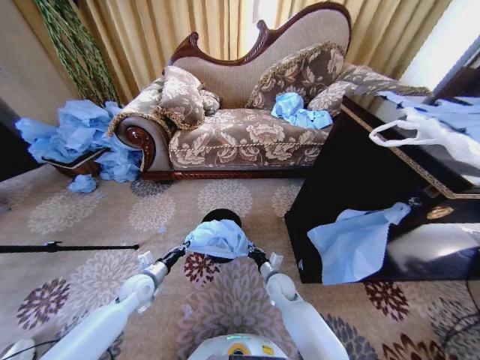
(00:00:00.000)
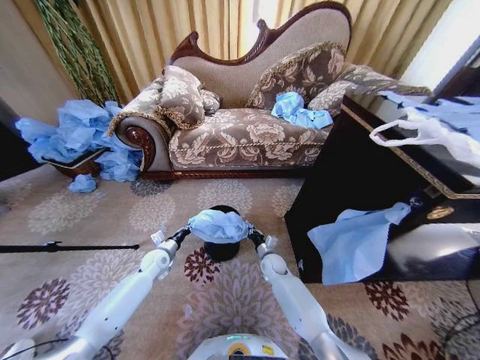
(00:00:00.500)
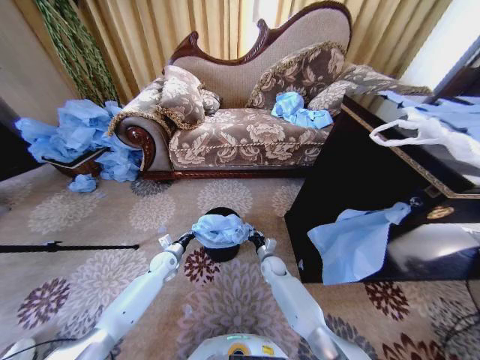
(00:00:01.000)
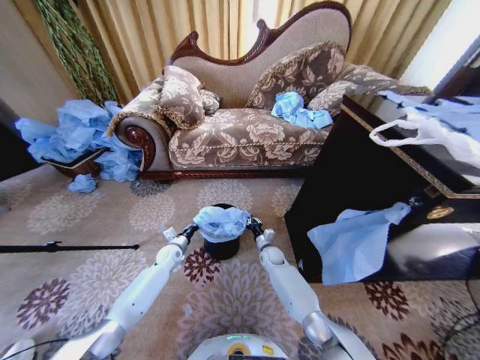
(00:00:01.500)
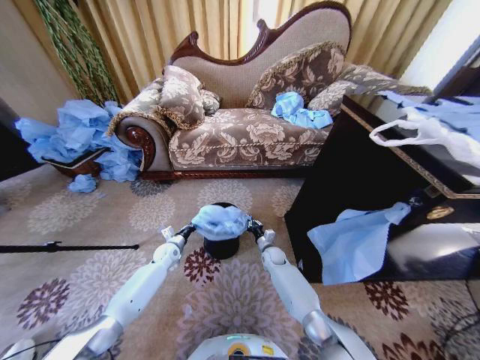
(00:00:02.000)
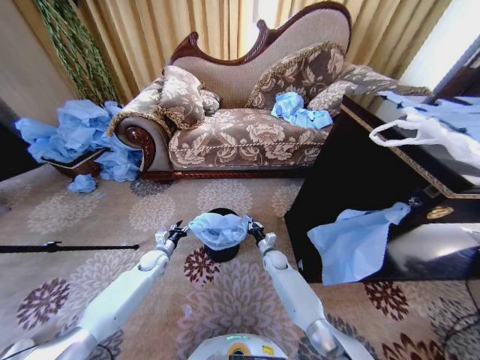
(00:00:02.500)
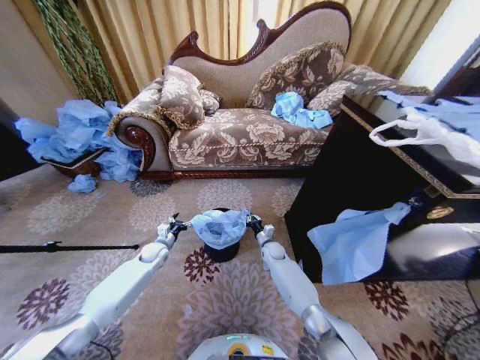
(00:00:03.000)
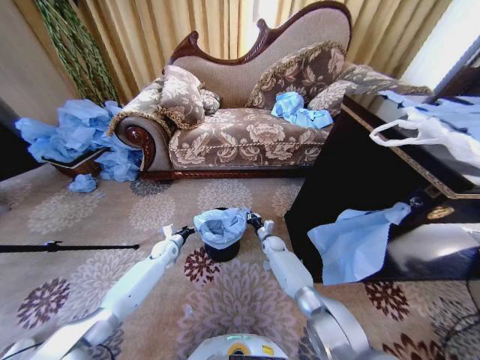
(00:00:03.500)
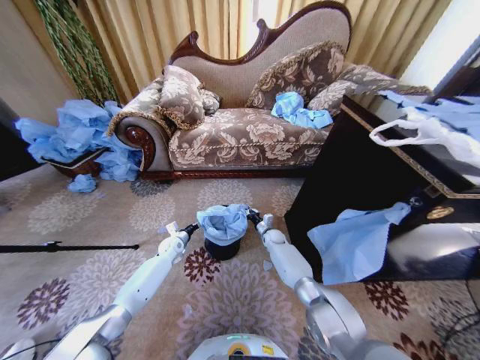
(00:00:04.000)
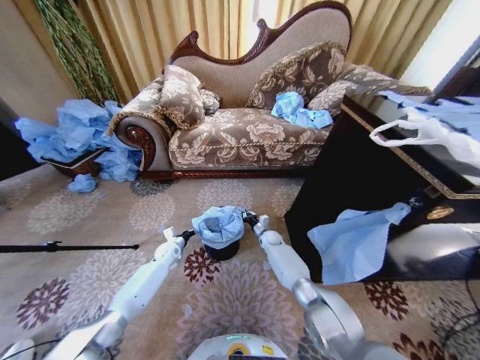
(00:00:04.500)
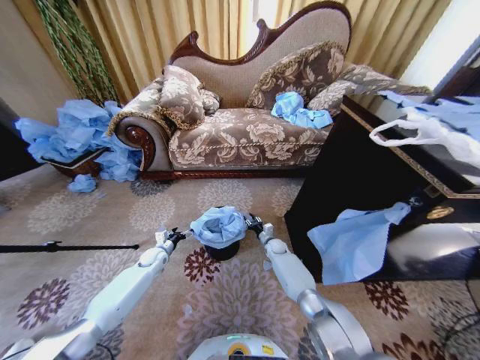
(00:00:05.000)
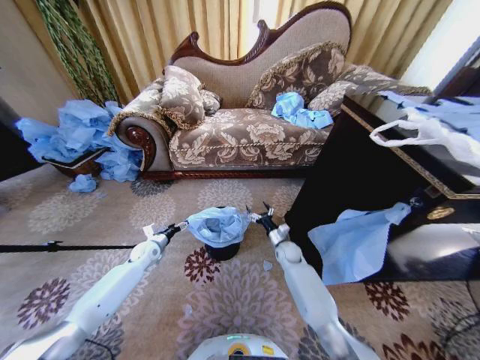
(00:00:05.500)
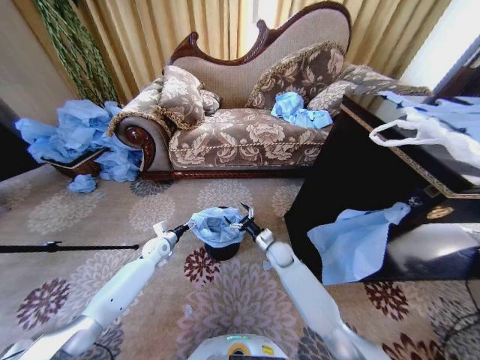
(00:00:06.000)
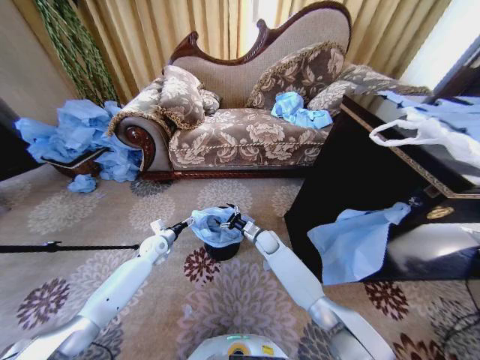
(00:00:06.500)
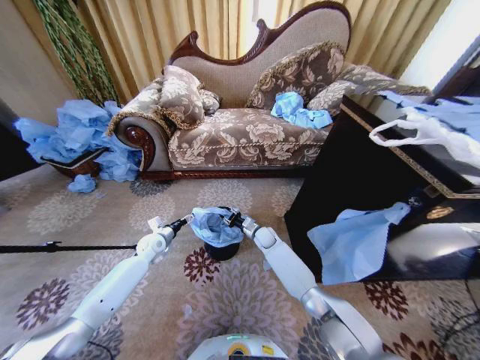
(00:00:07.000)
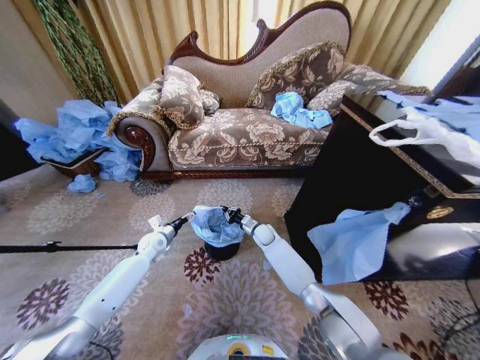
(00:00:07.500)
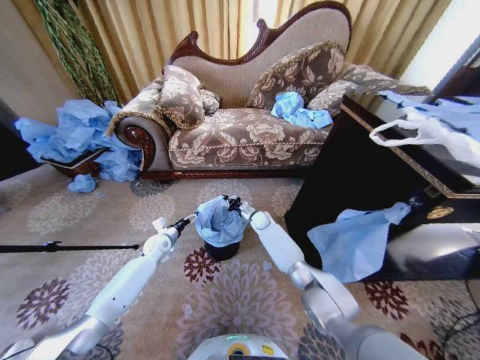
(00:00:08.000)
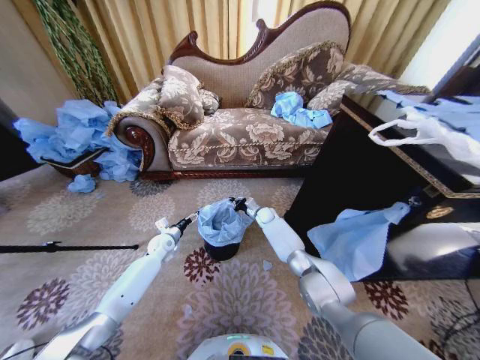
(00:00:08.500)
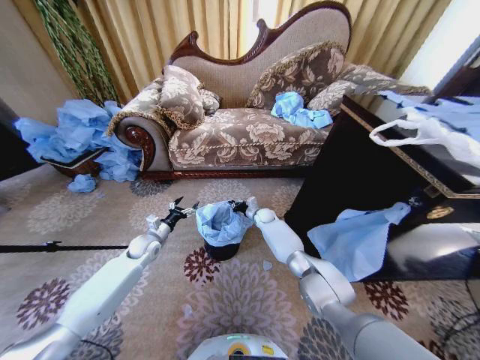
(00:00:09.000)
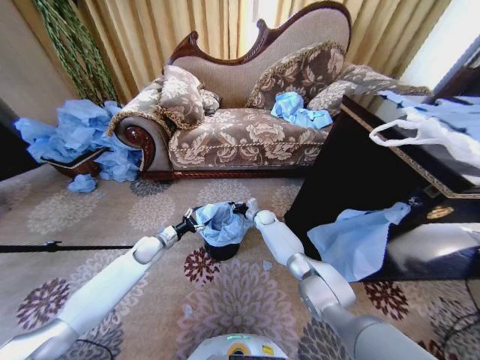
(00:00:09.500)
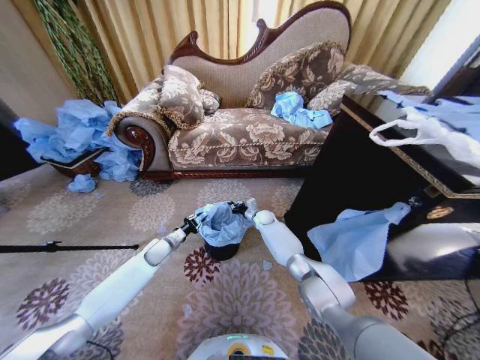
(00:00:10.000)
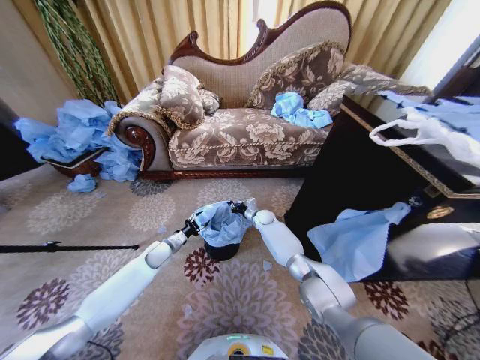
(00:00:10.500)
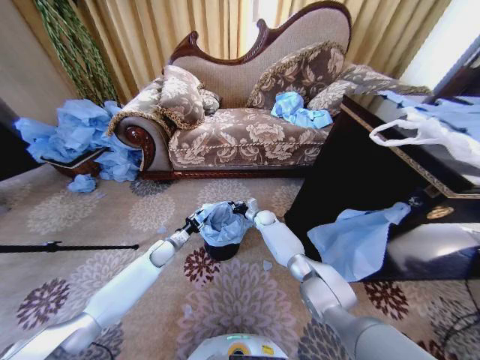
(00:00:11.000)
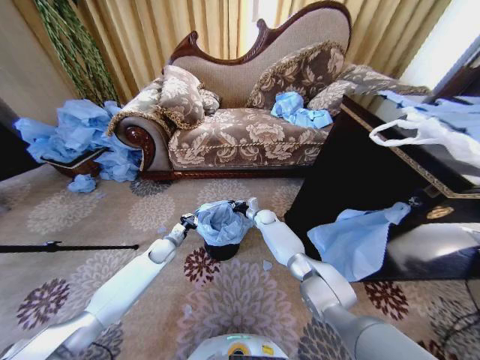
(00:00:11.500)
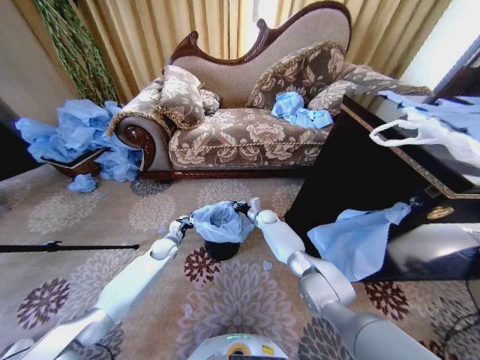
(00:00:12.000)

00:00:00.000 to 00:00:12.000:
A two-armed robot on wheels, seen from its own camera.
Task of the whole recording: Place a garbage bag over the trash bin.
00:00:00.000 to 00:00:02.000: Both grippers travel together forward, approximately 15 cm.
00:00:02.000 to 00:00:04.000: The right gripper goes about 10 cm forward; the left gripper opens its fingers.
00:00:04.000 to 00:00:06.000: The right gripper moves backward and upward, about 10 cm, and opens.
00:00:06.000 to 00:00:08.000: The right gripper is displaced forward and to the left by about 15 cm, and closes up.
00:00:08.000 to 00:00:10.000: The left gripper closes.

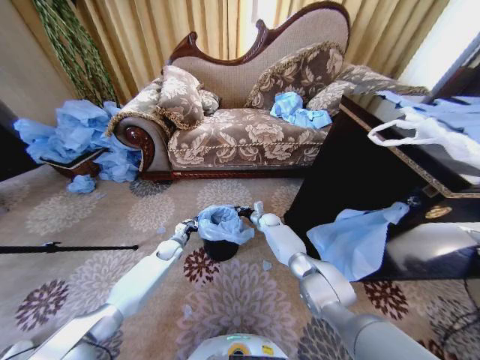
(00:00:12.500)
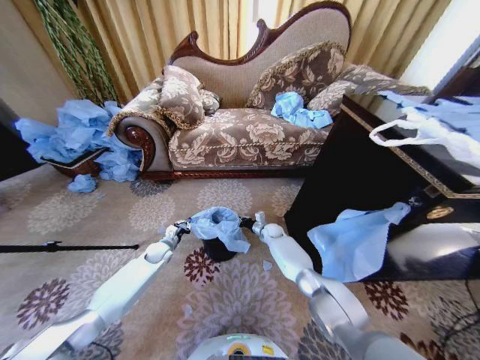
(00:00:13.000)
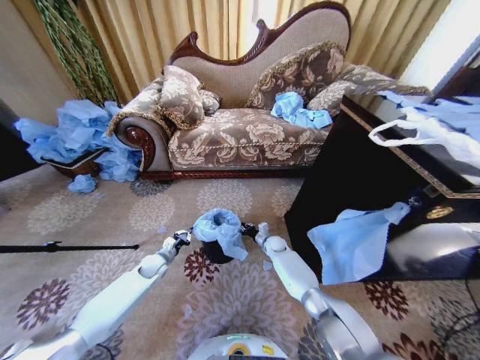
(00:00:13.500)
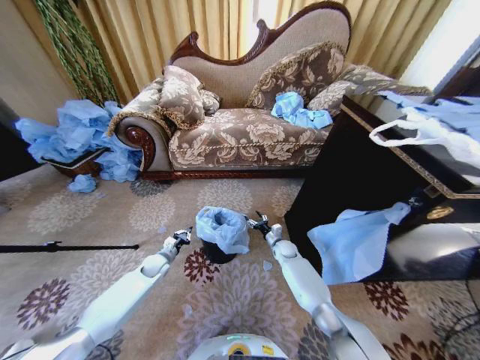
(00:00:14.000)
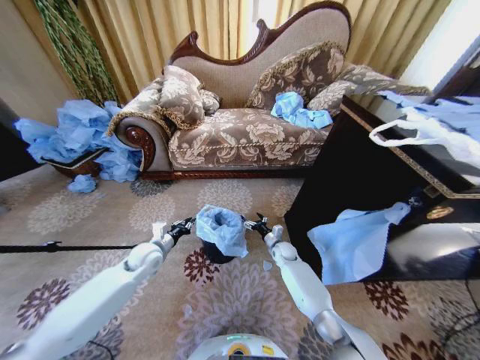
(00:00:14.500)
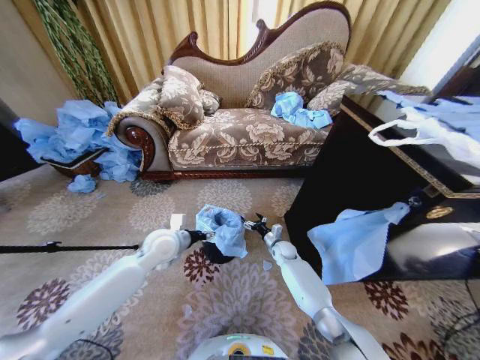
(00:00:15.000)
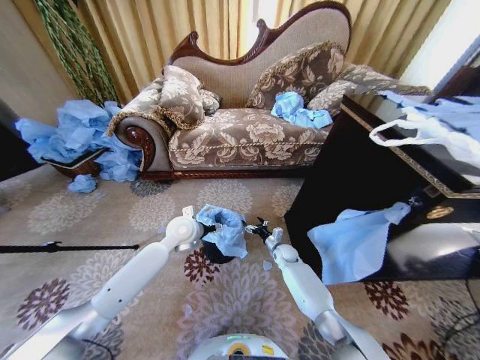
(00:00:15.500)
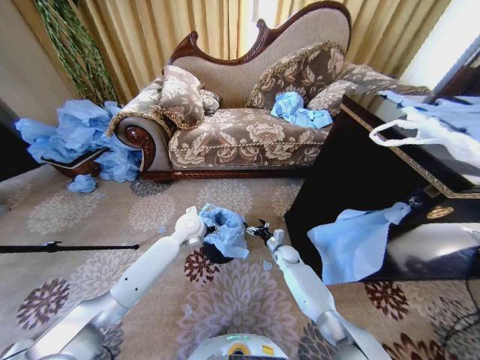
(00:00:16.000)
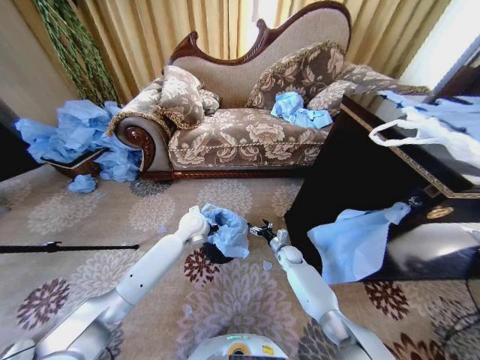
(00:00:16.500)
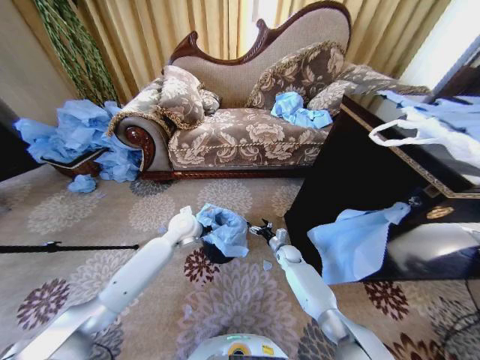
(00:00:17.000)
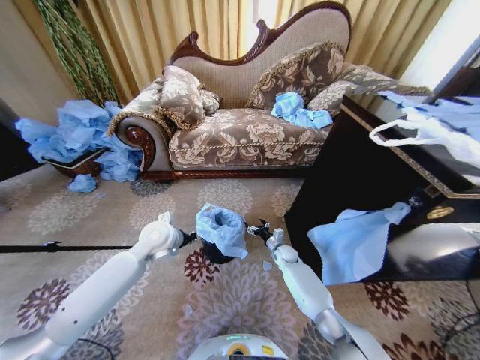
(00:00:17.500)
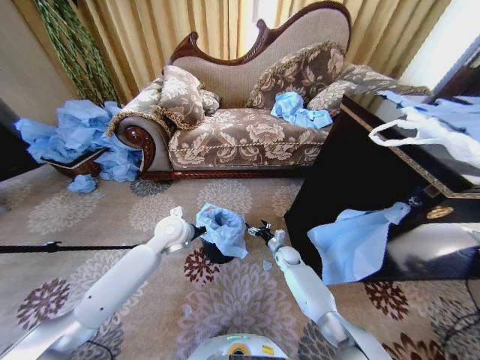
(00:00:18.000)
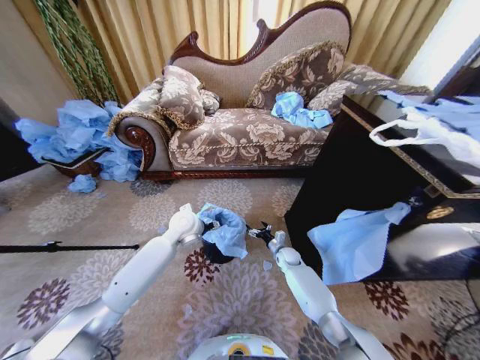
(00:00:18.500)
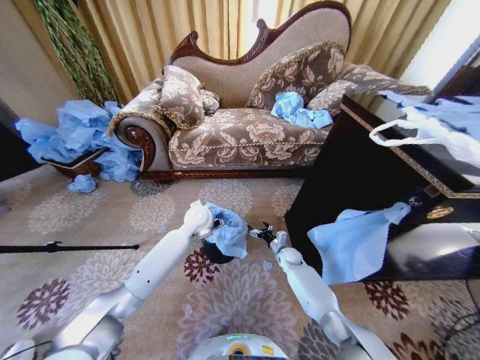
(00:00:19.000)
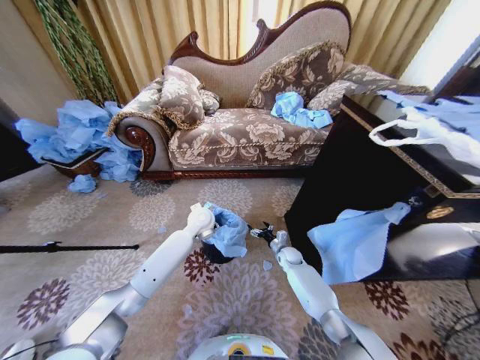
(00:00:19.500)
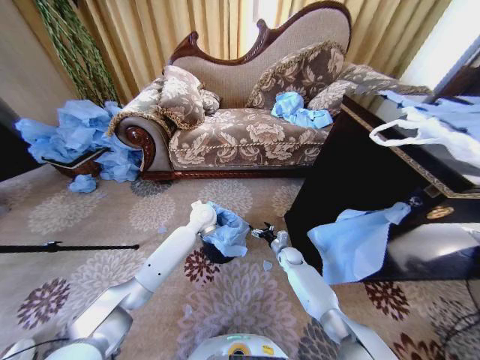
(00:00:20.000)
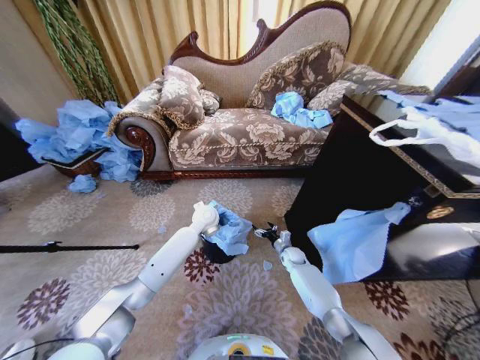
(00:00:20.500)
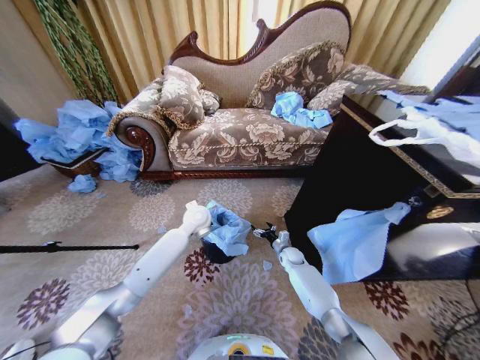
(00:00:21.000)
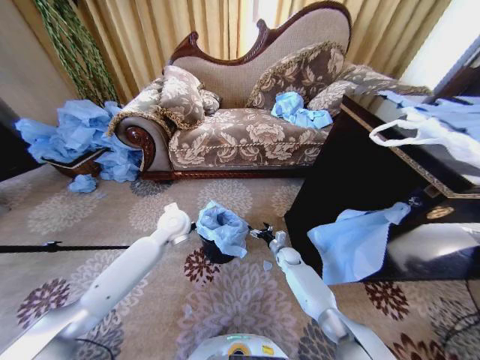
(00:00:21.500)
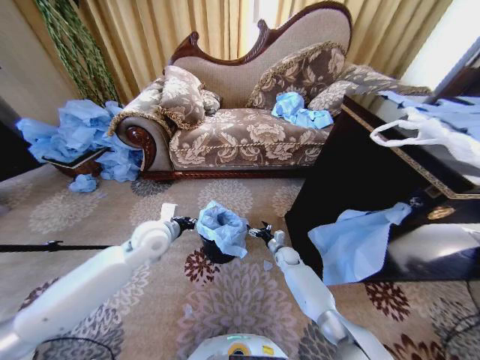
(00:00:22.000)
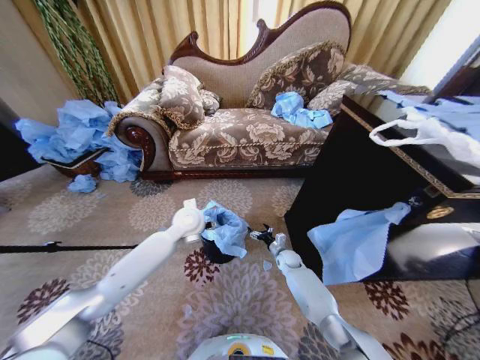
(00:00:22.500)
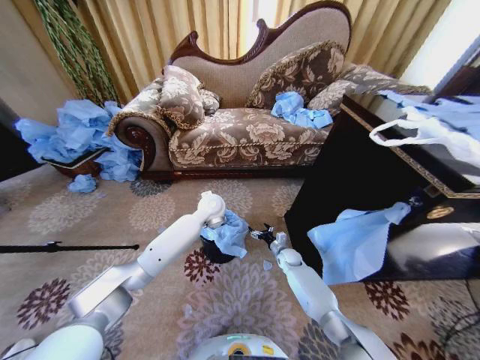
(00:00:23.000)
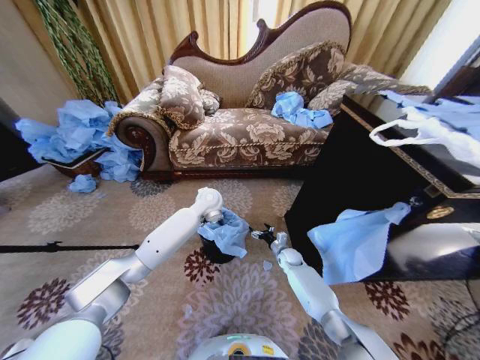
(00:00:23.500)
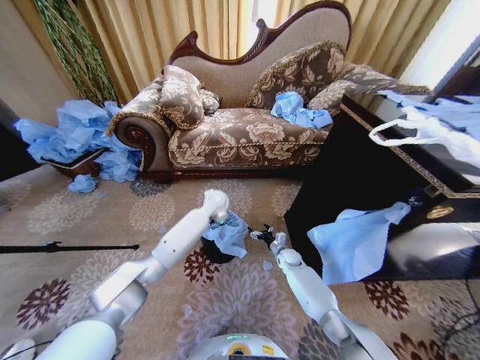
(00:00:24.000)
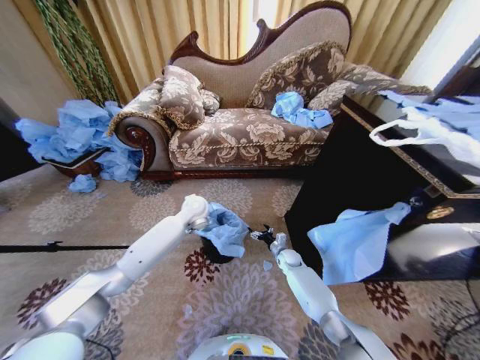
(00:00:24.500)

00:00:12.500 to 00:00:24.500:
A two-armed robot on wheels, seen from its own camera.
Task of the whole recording: Place a garbage bag over the trash bin.
00:00:12.500 to 00:00:14.500: The left gripper shifts some 15 cm upward and backward, while the right gripper goes about 15 cm backward and to the right, and opens up.
00:00:14.500 to 00:00:16.500: The left gripper is displaced to the right, forward and upward by about 20 cm, and opens, then closes once more.
00:00:16.500 to 00:00:18.500: The left gripper reaches some 10 cm backward, then returns, and opens up.
00:00:18.500 to 00:00:20.500: The left gripper moves forward and to the right, about 10 cm, and closes up.
00:00:20.500 to 00:00:22.500: The left gripper travels backward and upward by some 10 cm, and opens up.
00:00:22.500 to 00:00:24.500: The left gripper heads forward, covering some 5 cm.

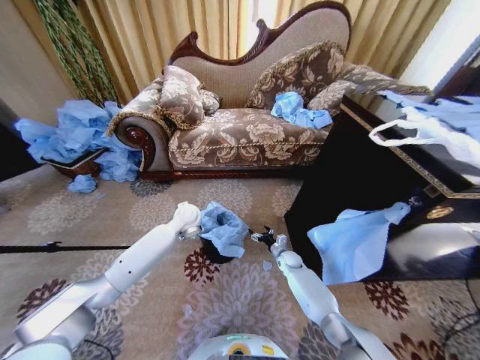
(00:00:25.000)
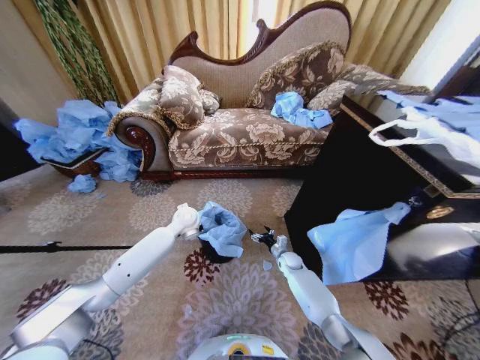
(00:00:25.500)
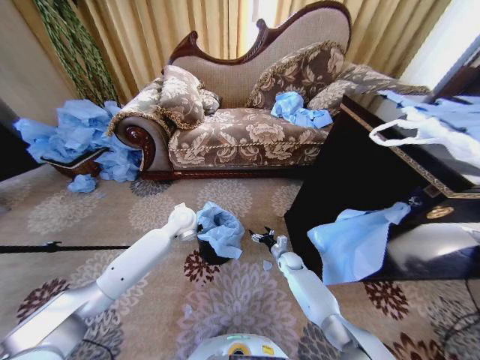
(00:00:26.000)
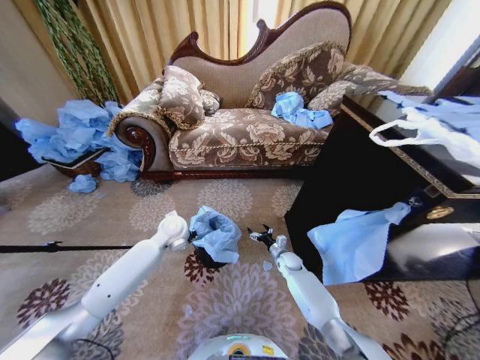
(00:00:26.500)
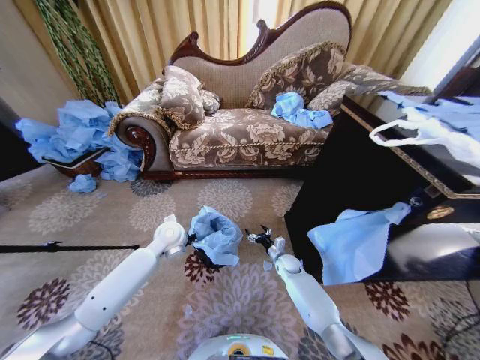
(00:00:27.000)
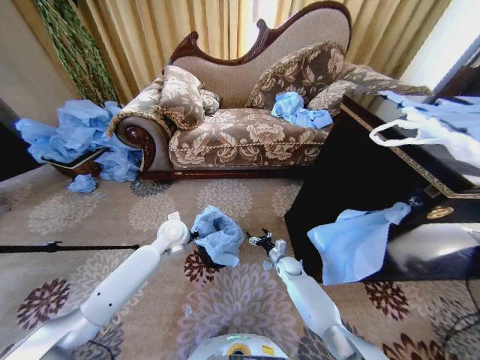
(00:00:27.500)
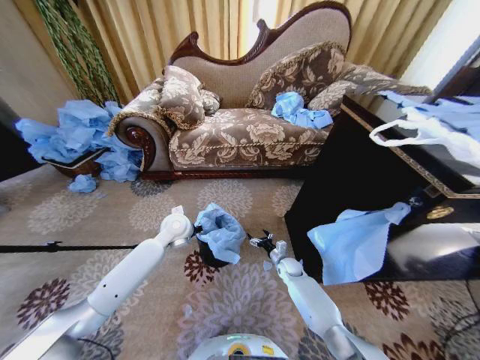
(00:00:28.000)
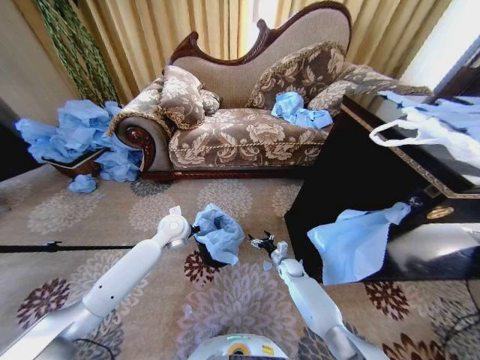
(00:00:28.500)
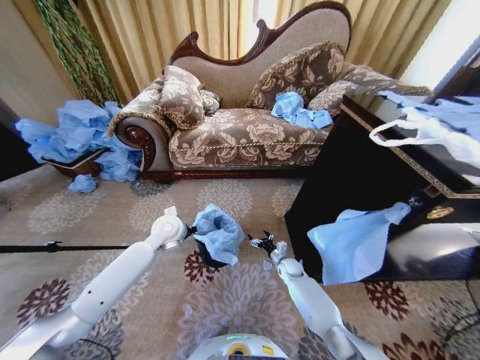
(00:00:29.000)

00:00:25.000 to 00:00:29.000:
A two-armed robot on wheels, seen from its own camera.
Task of the whole recording: Place a garbage bag over the trash bin.
00:00:25.000 to 00:00:27.000: The left gripper heads backward, covering approximately 5 cm, and closes.
00:00:27.000 to 00:00:29.000: There are only small adjustments of the grippers.
